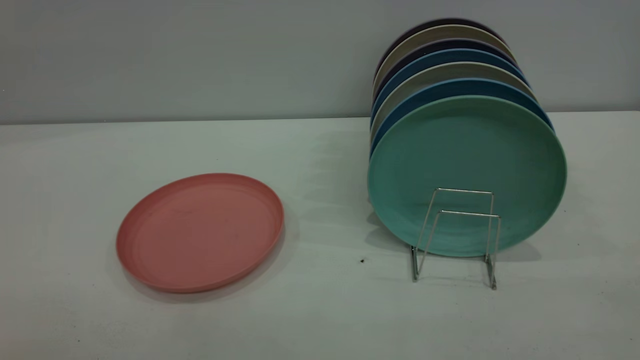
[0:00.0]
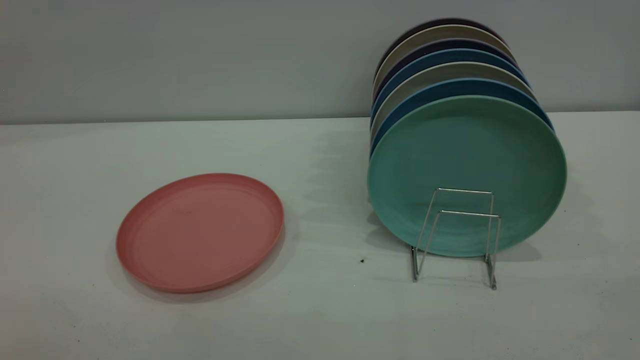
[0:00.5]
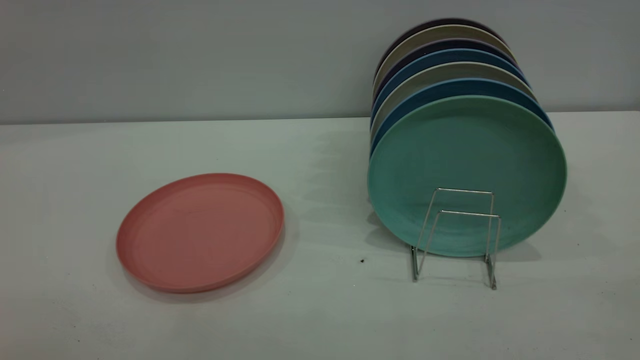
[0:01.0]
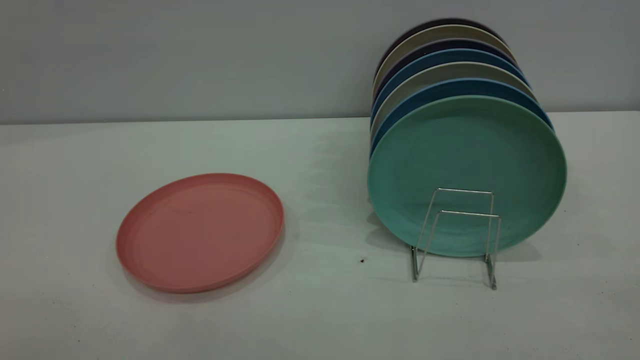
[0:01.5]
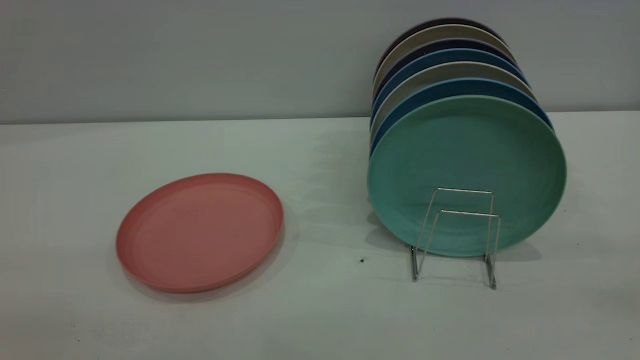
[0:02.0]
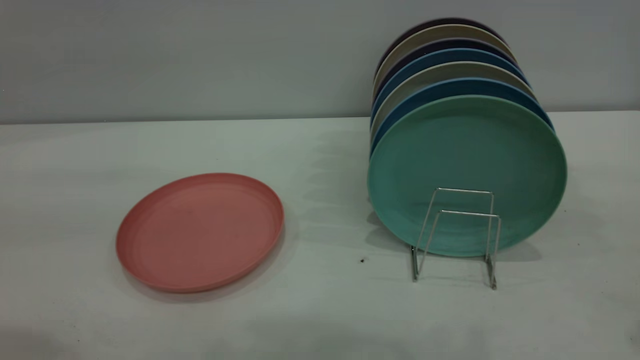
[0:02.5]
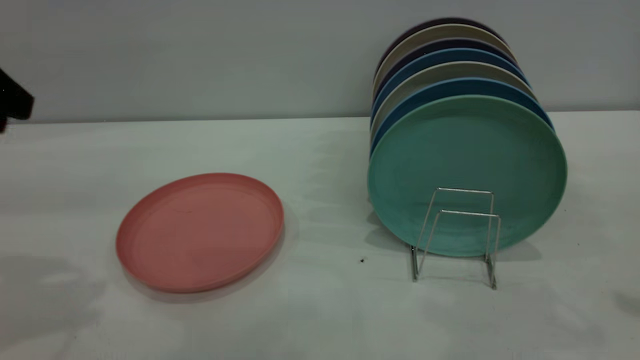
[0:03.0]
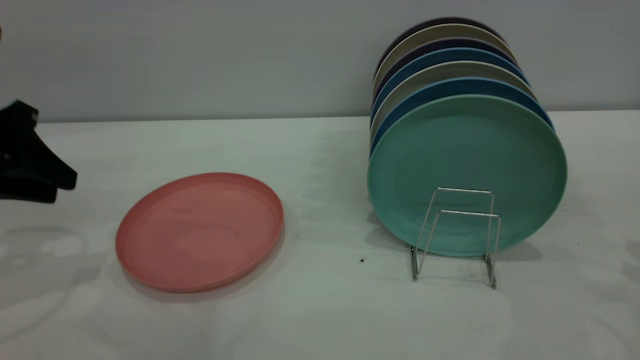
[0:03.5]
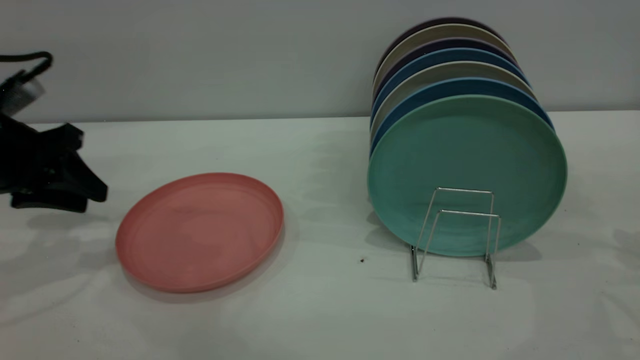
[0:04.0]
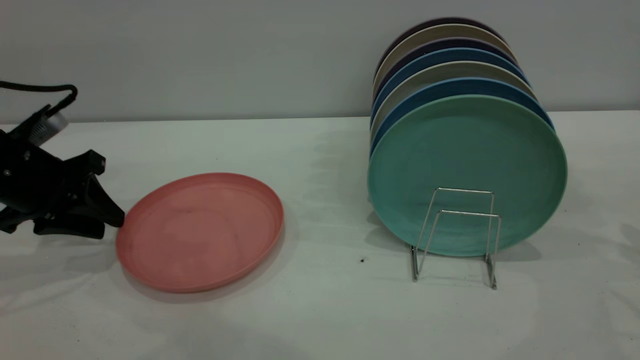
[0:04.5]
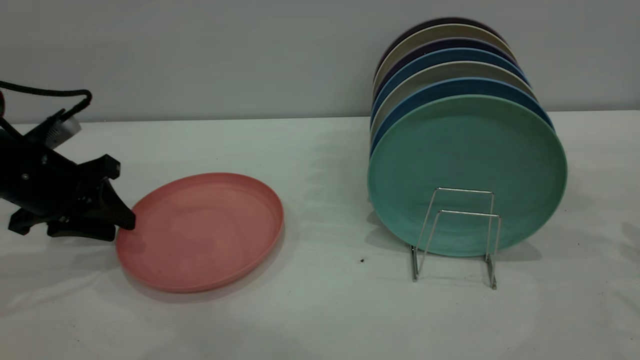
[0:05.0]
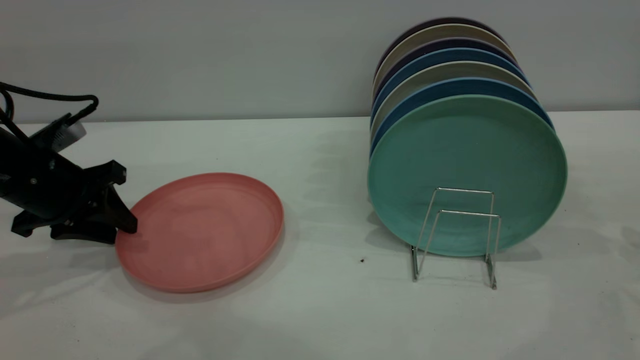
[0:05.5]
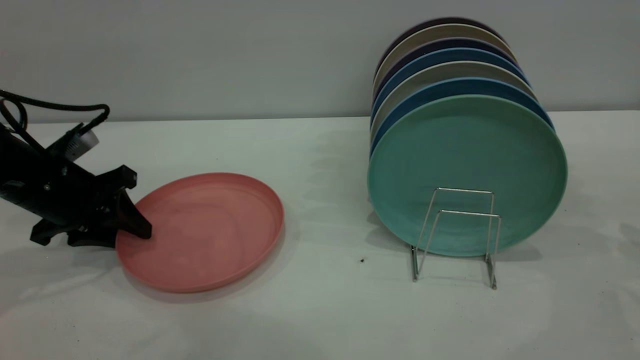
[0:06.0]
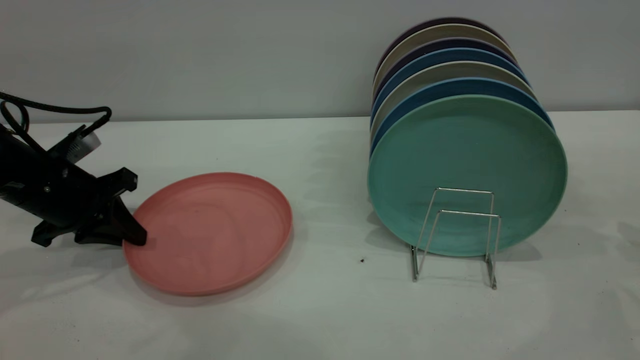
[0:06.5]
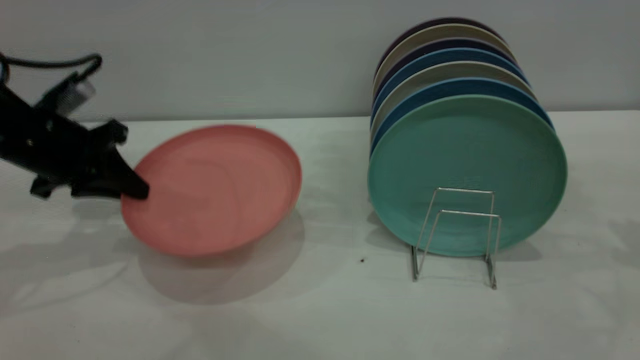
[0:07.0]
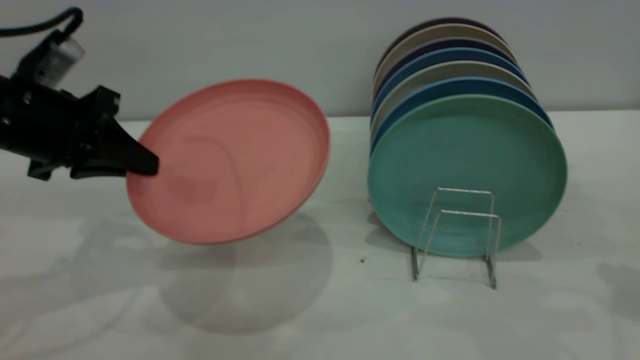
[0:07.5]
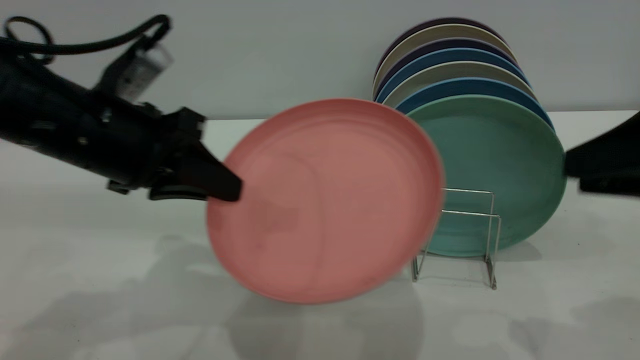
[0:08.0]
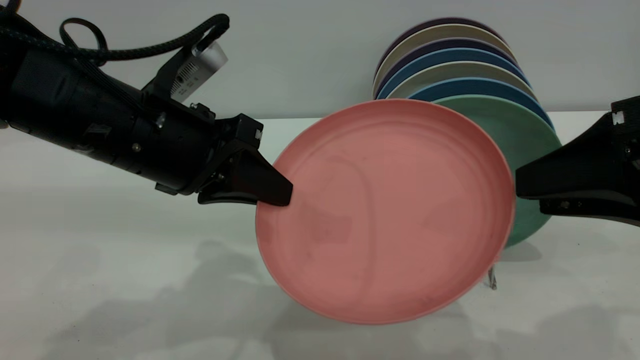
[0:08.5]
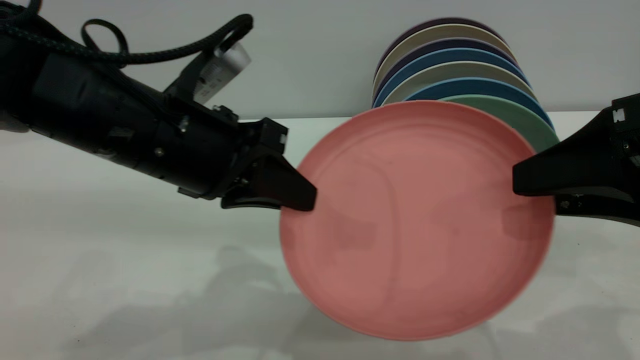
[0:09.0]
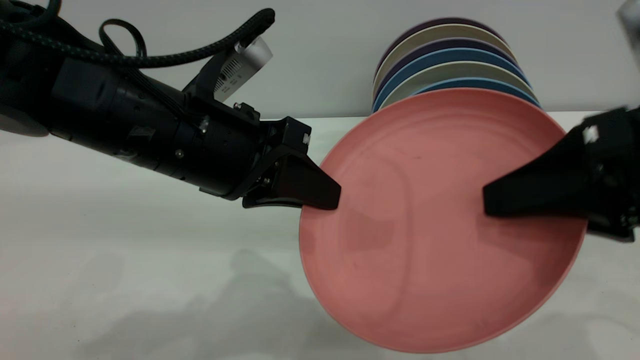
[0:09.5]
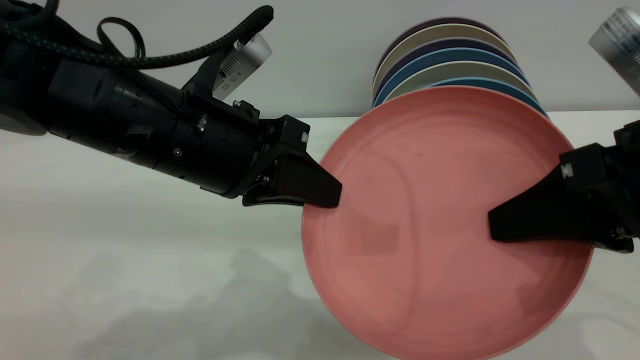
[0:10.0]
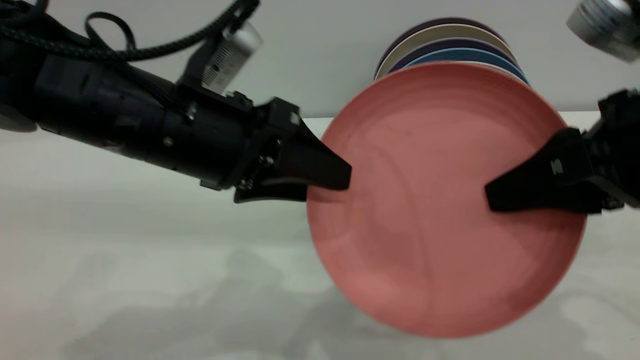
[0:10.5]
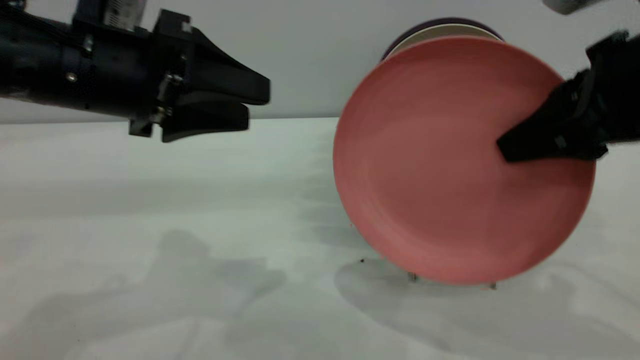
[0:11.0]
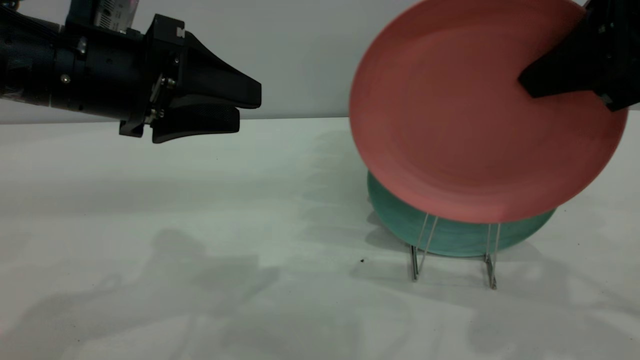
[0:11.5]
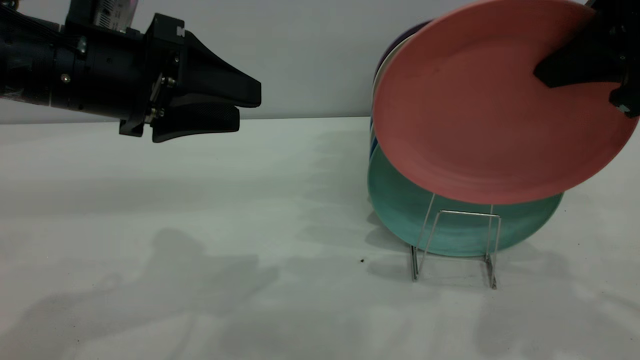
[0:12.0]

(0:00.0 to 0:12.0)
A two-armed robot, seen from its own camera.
Task of the whole recording: put the plate on the plate rack.
Step, 0:00.0 - 0:06.5: Pick up the plate with the left gripper.
Step, 0:07.0 - 0:10.5: Pass the plate from the left gripper to the right gripper.
0:02.0 - 0:04.0: The left gripper travels forward and downward by about 40 cm.
0:04.0 - 0:06.0: The left gripper heads downward, covering about 5 cm.
0:06.0 - 0:08.0: The left gripper is displaced to the right, upward and backward by approximately 20 cm, and closes up. Meanwhile the right gripper moves to the left and backward, roughly 15 cm.
0:08.0 - 0:10.0: The left gripper heads to the right, covering roughly 5 cm. The right gripper heads to the left, covering approximately 5 cm, and opens, then closes again.
0:10.0 - 0:12.0: The left gripper shifts approximately 10 cm to the left, and opens up, while the right gripper heads upward and forward, covering about 10 cm.

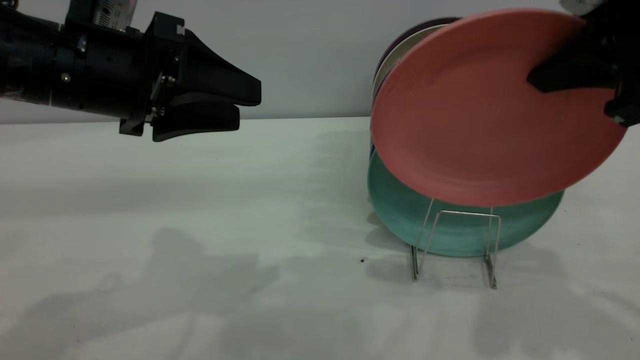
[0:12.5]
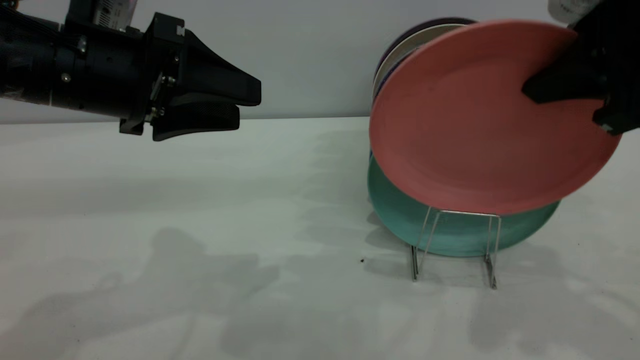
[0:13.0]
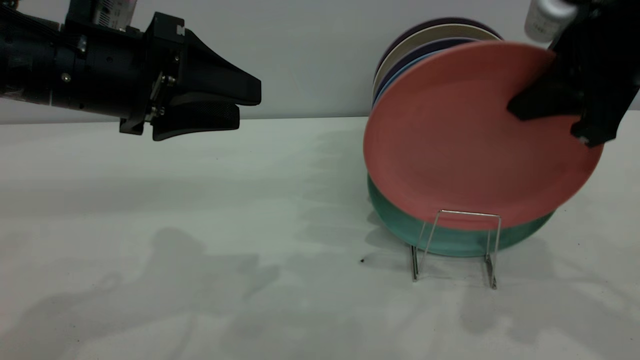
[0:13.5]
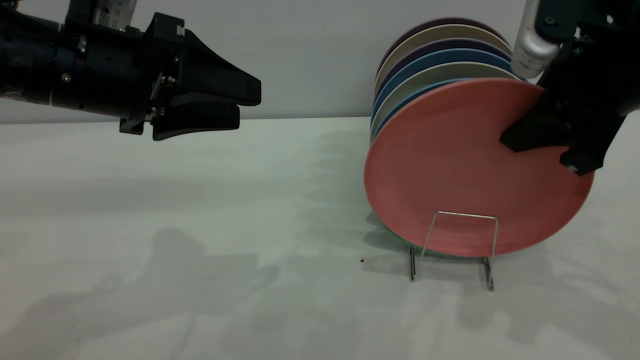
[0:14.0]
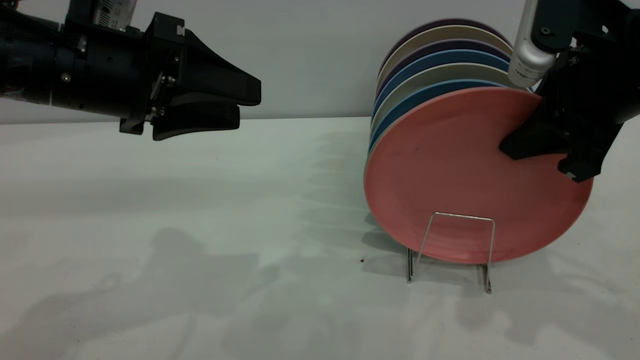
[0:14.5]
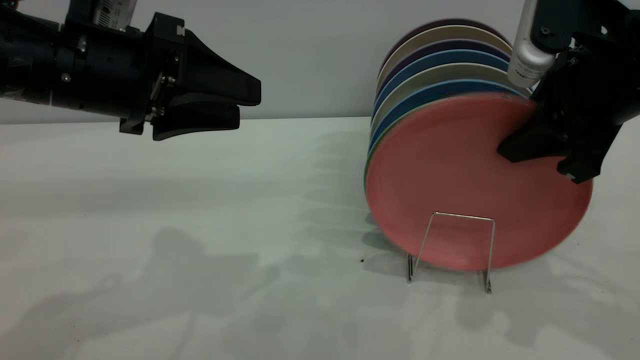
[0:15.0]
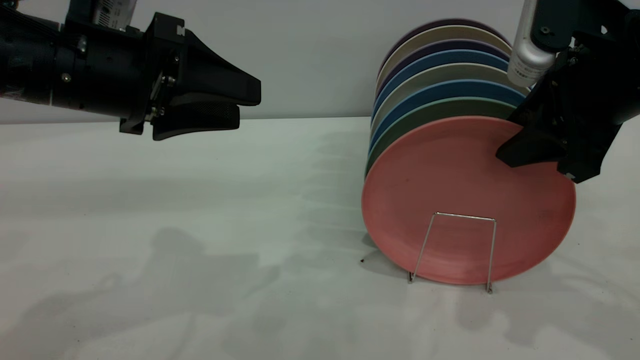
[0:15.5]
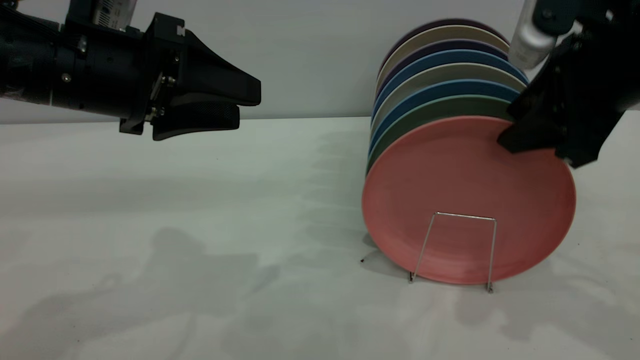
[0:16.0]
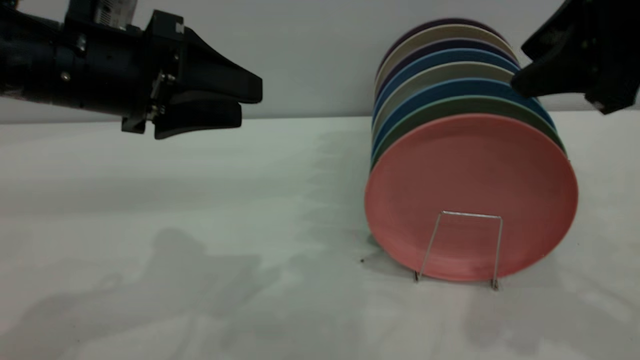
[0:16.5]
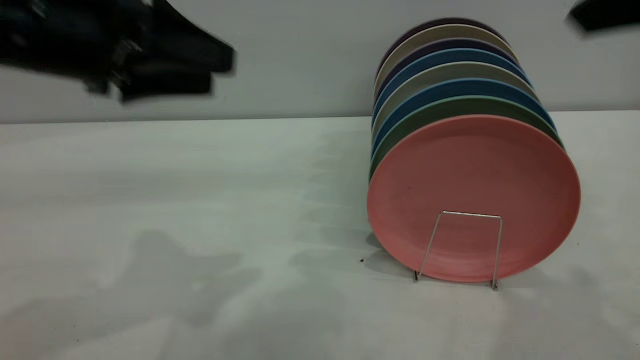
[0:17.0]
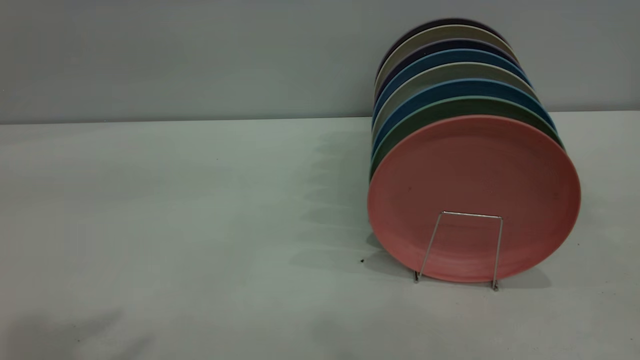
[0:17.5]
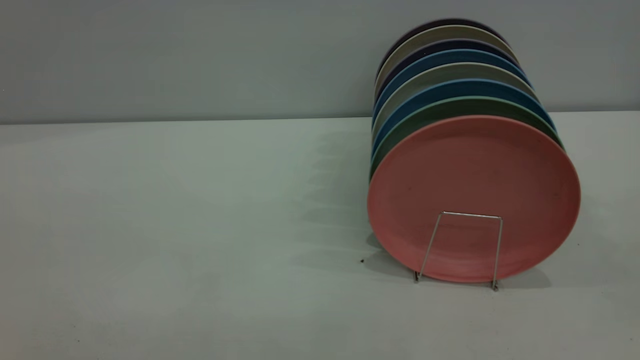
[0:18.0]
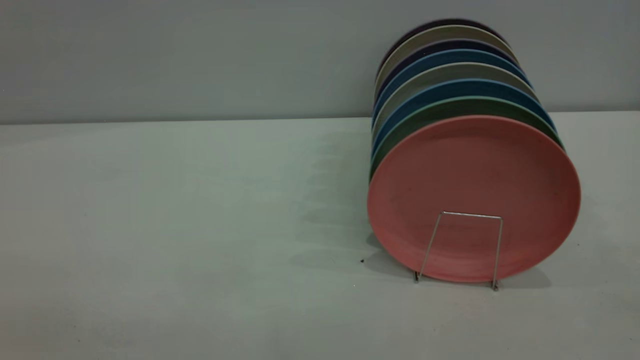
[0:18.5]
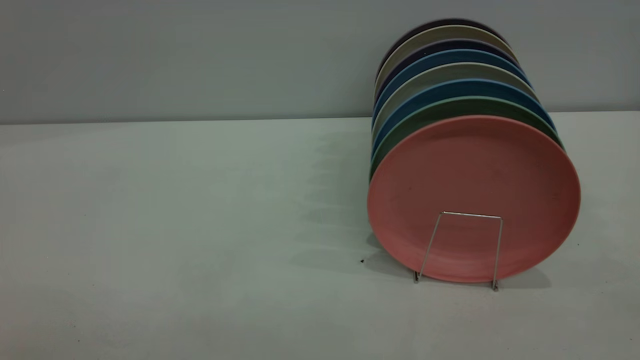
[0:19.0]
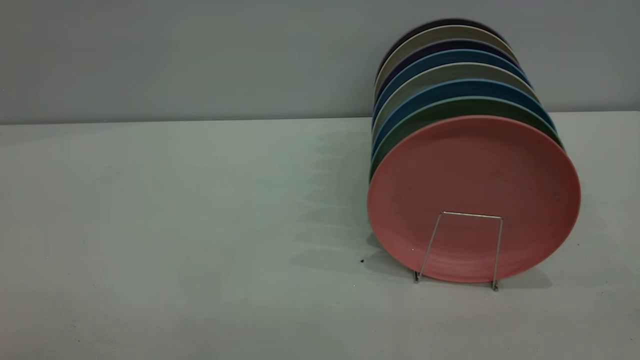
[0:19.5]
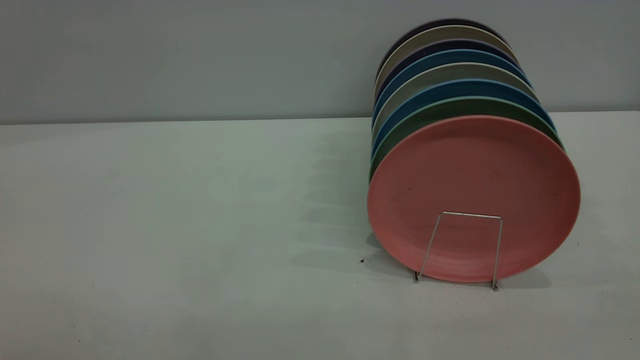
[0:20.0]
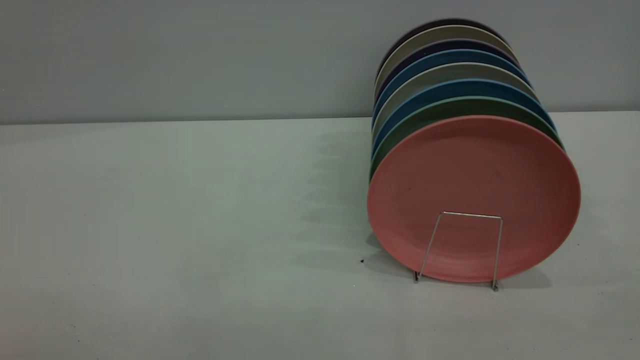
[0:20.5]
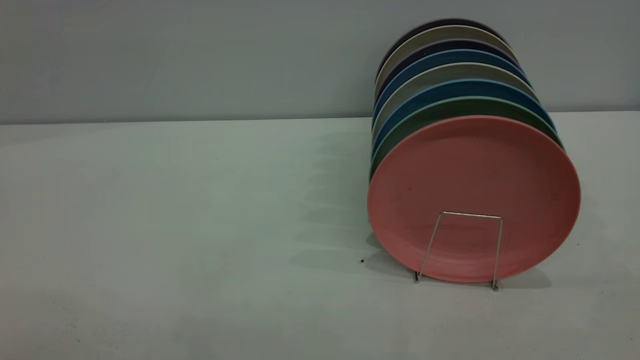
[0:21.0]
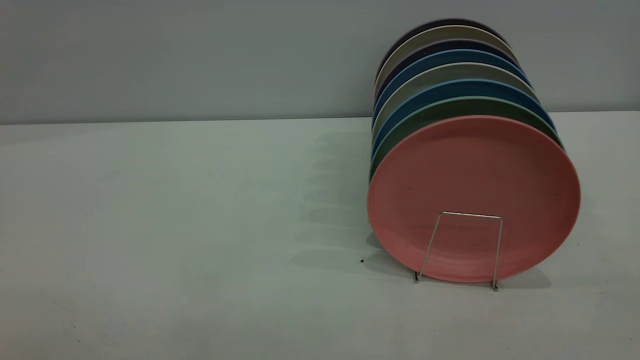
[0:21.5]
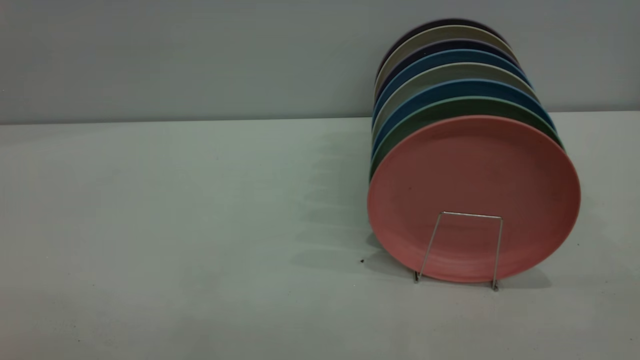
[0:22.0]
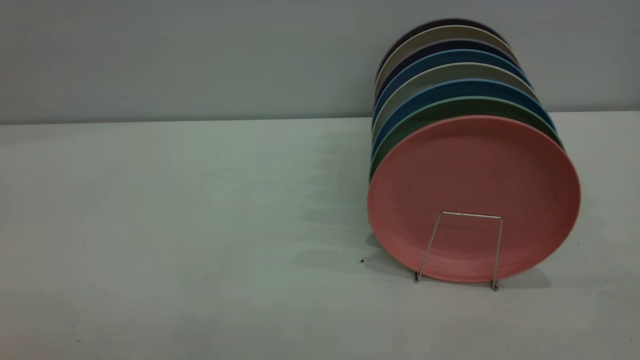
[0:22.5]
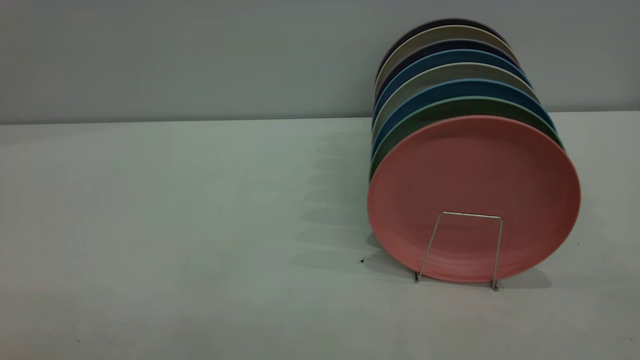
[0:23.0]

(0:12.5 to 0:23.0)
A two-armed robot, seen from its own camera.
Task of the whole recording: put the plate on the plate rack.
Step, 0:12.5 - 0:16.5: Place the plate on the shelf.
0:12.5 - 0:14.5: The right gripper is displaced downward by approximately 5 cm.
0:14.5 - 0:16.5: The right gripper is displaced upward by some 5 cm, and opens its fingers.
0:16.5 - 0:19.0: Both grippers move backward, approximately 30 cm.
0:21.0 - 0:23.0: Neither gripper changes place.
